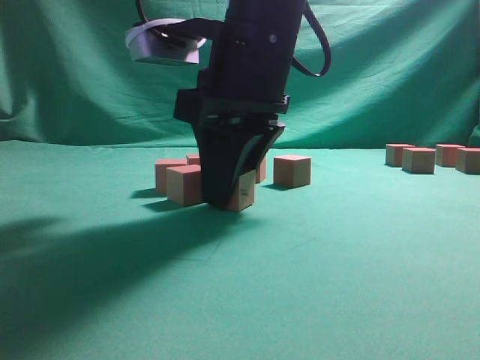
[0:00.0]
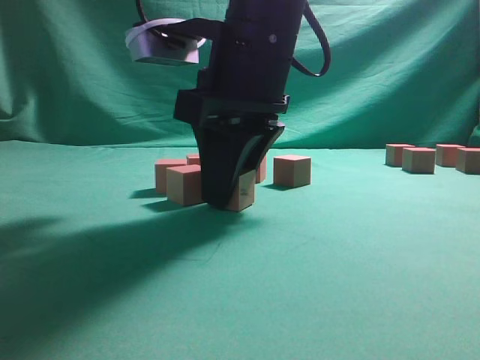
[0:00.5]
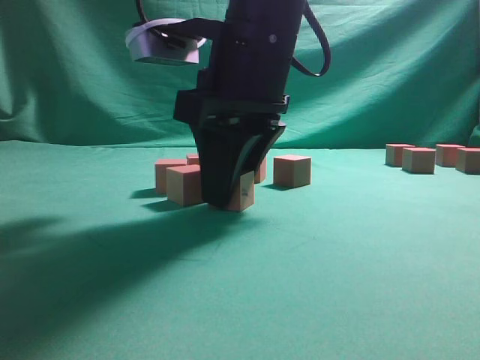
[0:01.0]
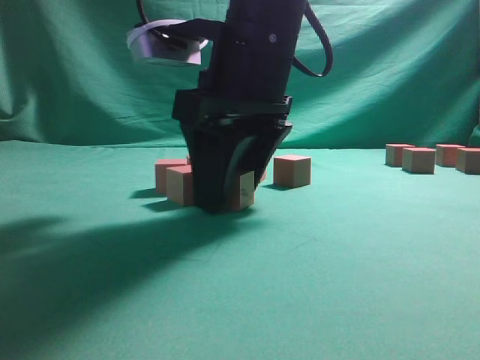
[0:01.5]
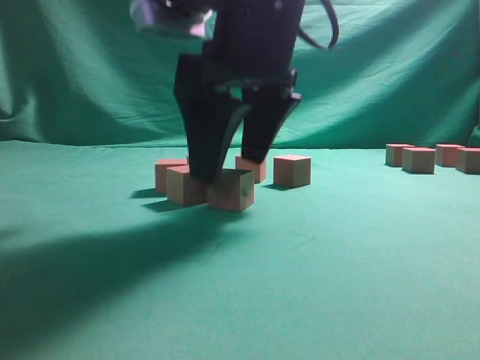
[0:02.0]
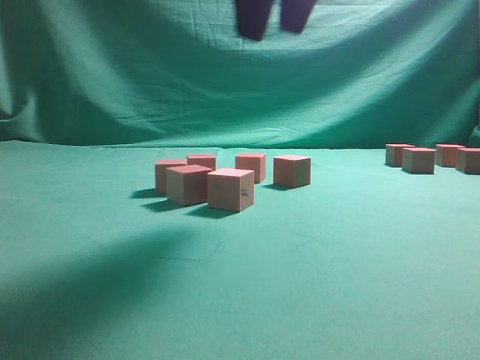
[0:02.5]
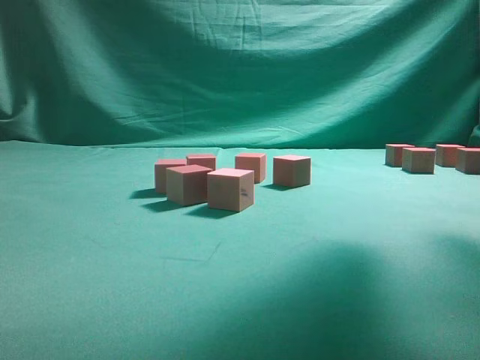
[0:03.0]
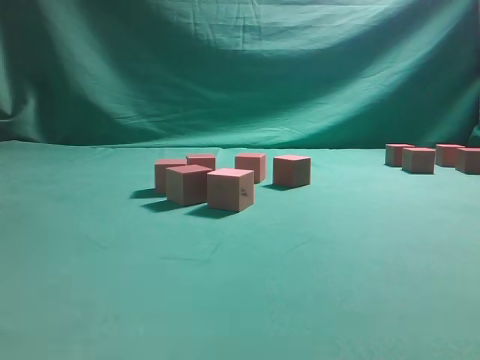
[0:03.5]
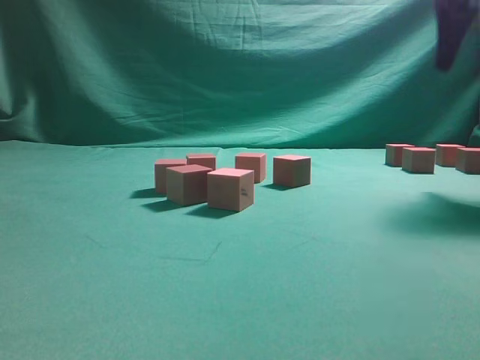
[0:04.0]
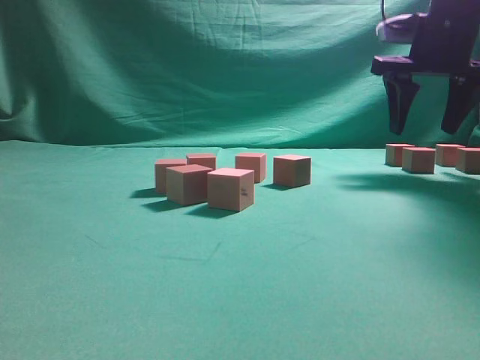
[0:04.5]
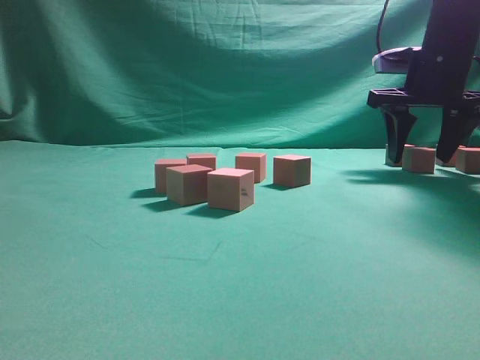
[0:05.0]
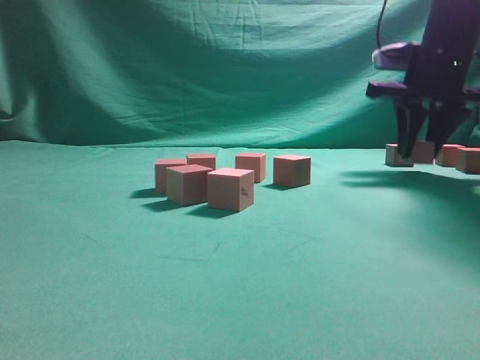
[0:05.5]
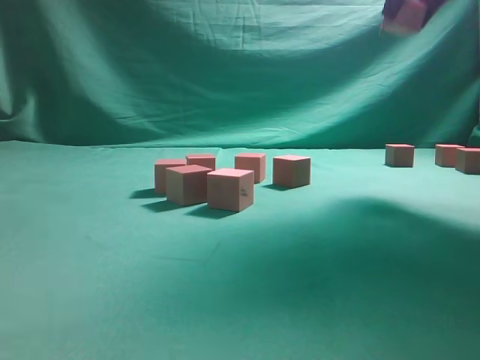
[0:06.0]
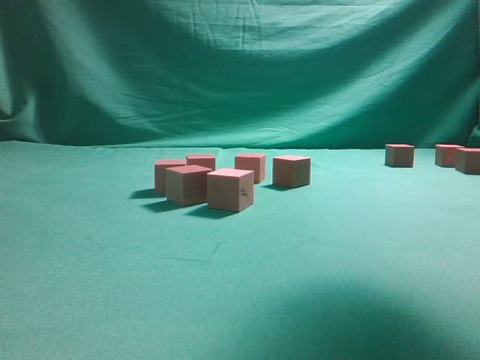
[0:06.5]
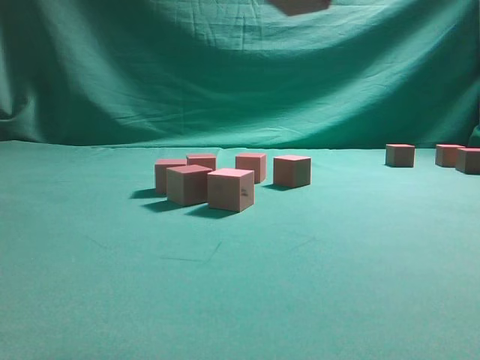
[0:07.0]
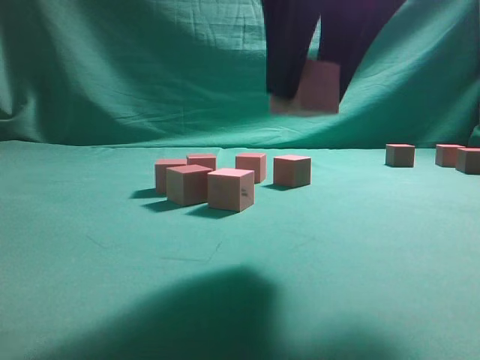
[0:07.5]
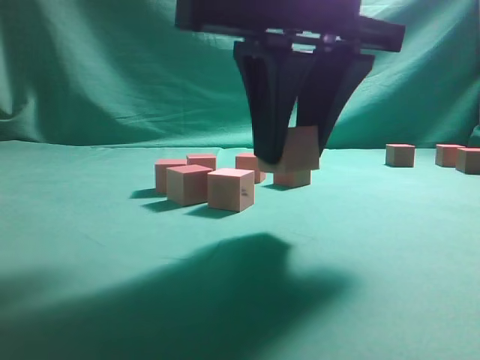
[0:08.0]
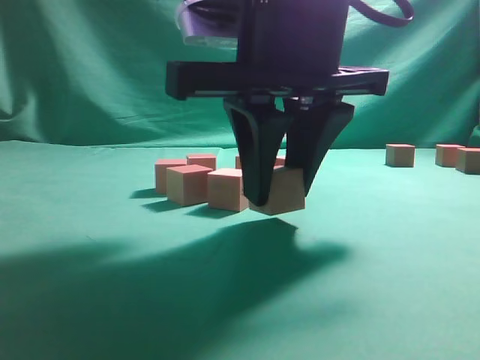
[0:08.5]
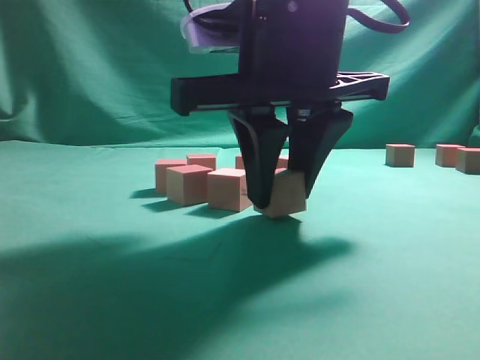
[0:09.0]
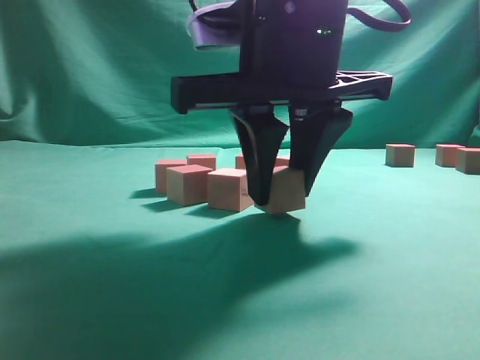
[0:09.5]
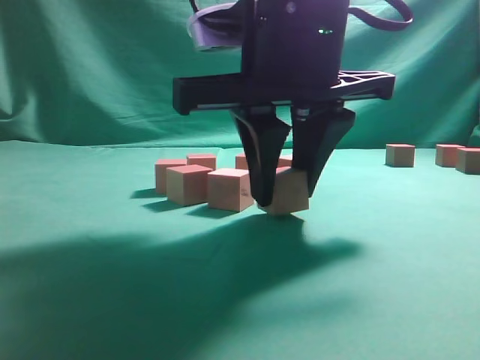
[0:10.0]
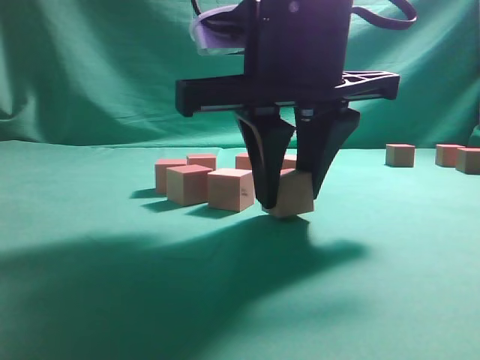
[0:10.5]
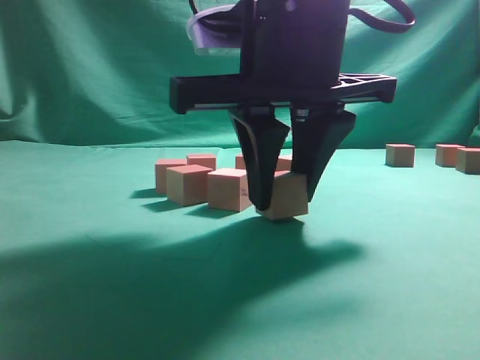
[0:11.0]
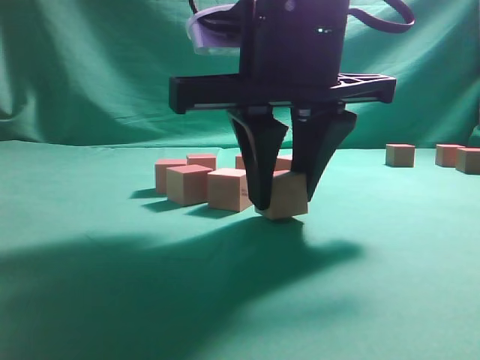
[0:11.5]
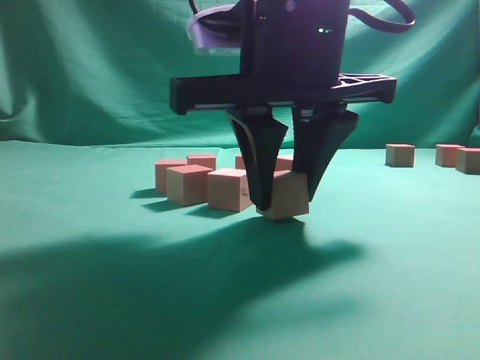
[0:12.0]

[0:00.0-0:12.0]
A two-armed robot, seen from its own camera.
Task of the whole recording: pick up the multiple cubes in two columns one by one and place them in another position on the table.
Step, 0:00.0 to 0:02.0: Place the block at the correct position to assemble the letter S.
Step, 0:02.5 to 0:05.5: Pick up the block on the table.
0:00.0 to 0:02.0: The right gripper opens its fingers.
0:02.0 to 0:04.0: The right gripper shifts roughly 25 cm to the right.
0:04.0 to 0:06.0: The right gripper goes some 5 cm upward, and closes up.
0:06.0 to 0:08.0: The right gripper moves to the left, backward and downward, some 25 cm.
0:10.0 to 0:12.0: Neither gripper changes place.

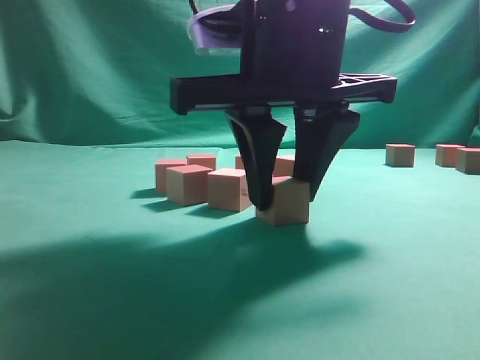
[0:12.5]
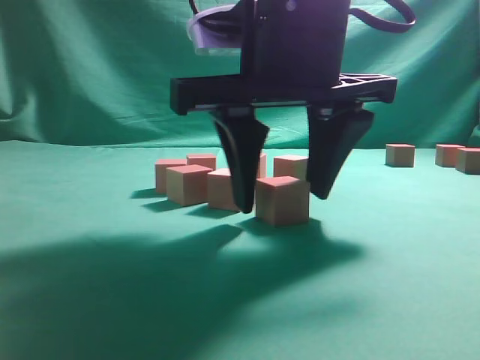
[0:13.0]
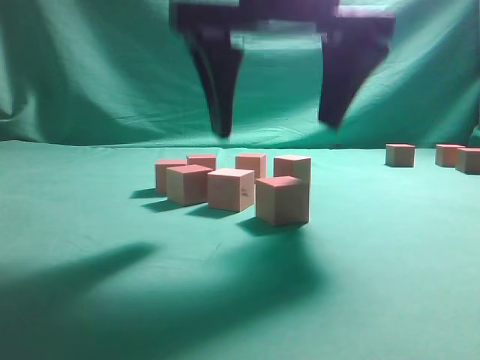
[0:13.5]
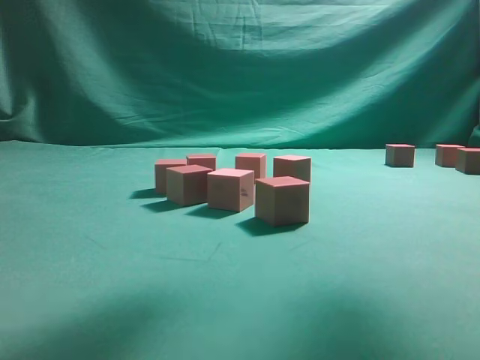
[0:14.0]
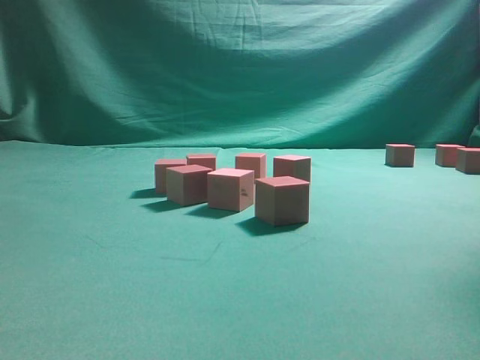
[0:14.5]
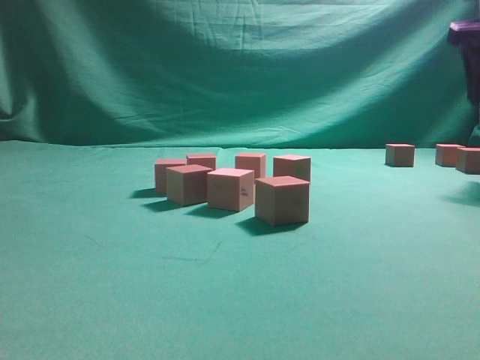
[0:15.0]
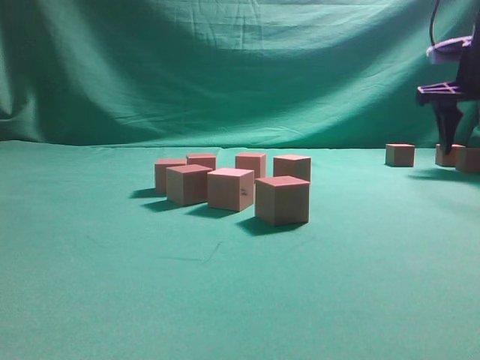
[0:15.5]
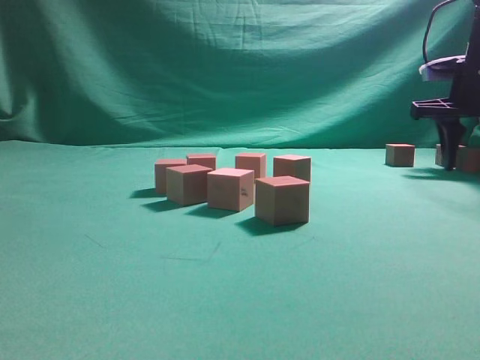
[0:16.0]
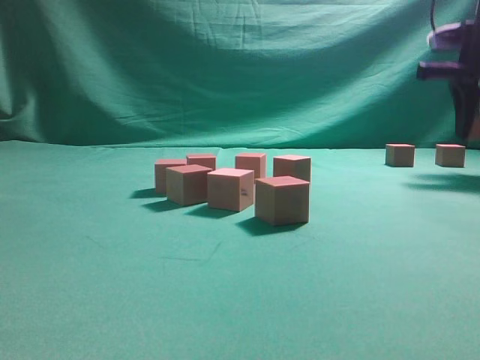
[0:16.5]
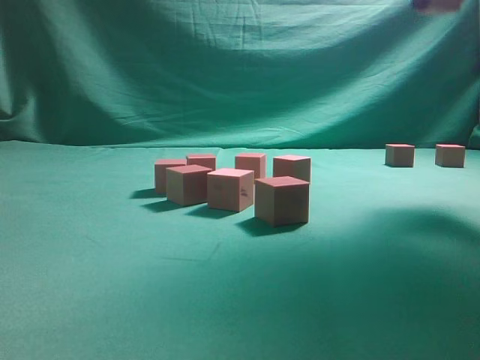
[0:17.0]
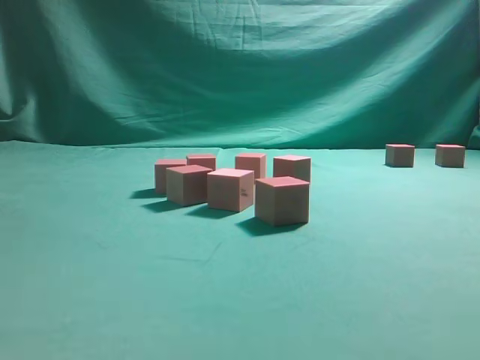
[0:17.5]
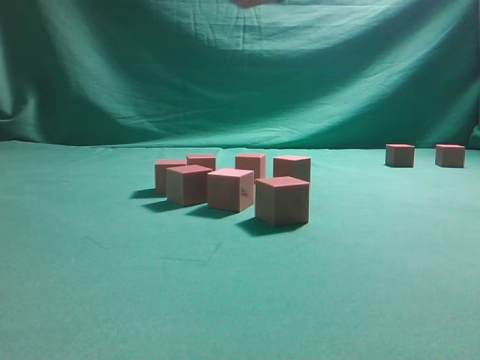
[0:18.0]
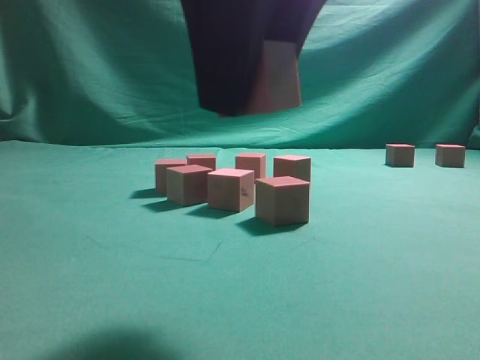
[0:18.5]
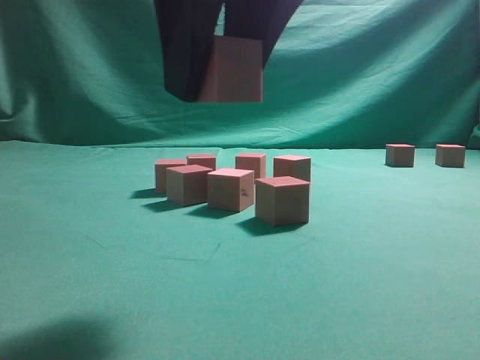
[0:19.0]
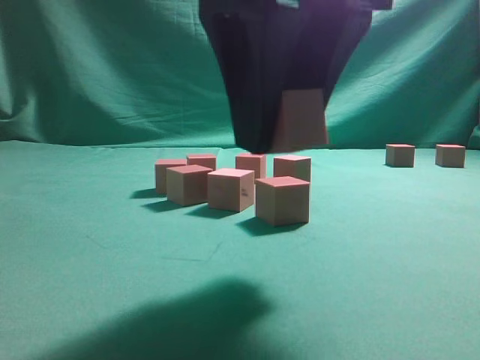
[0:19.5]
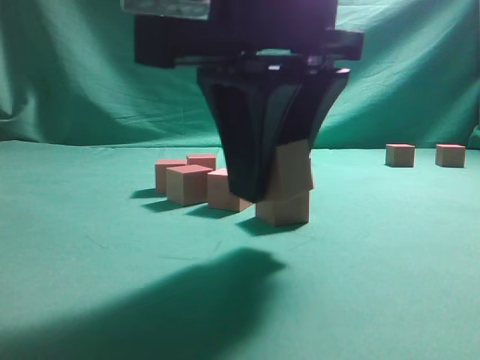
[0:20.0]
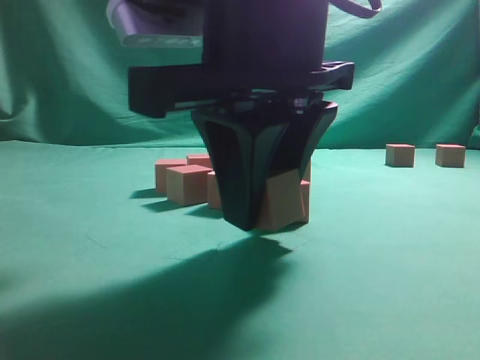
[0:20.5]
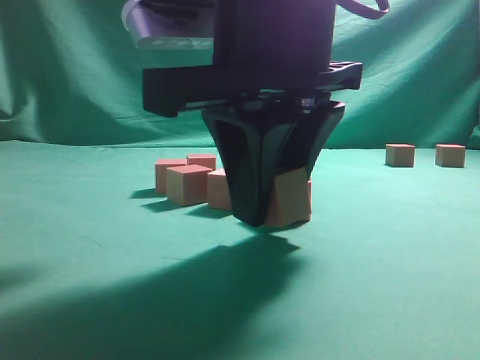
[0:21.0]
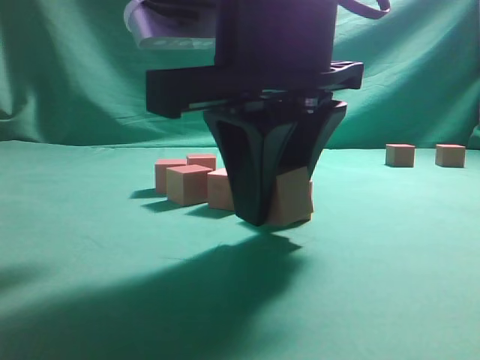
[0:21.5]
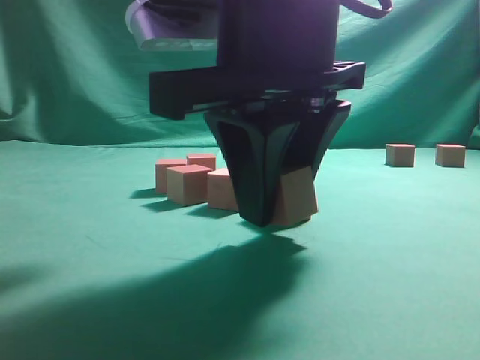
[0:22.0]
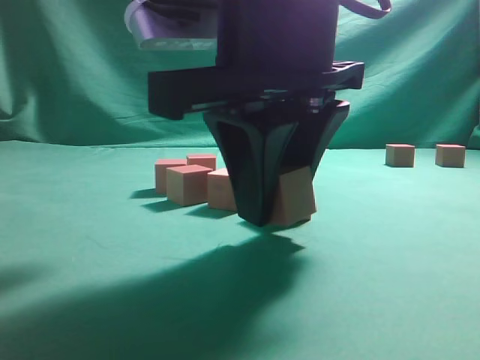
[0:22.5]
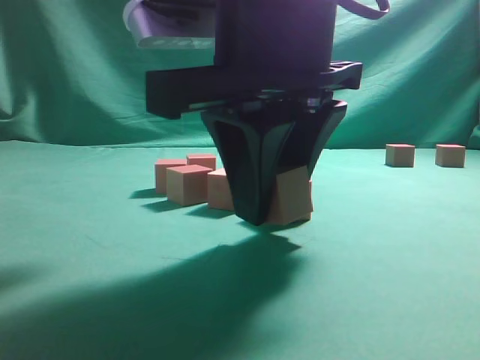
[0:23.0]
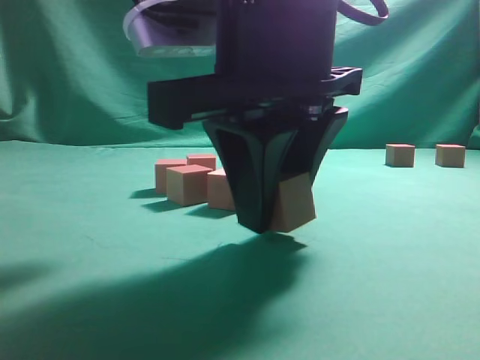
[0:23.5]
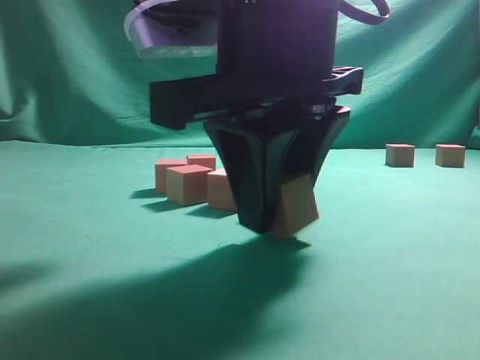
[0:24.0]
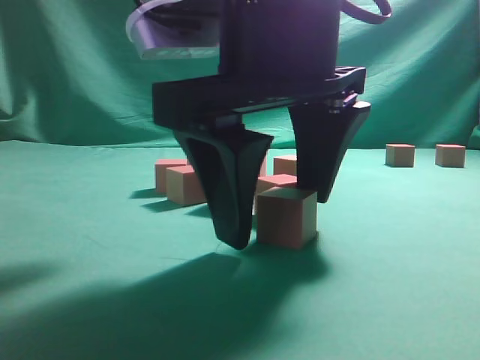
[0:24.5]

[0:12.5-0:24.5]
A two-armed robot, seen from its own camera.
Task of the whole recording: pick up the multiple cubes in two columns one by one and place them in another position on the table.
Step, 0:14.0 to 0:16.5: Pick up the block on the table.
0:12.5 to 0:14.5: The right gripper heads to the right and upward, covering some 30 cm, and opens its fingers.
0:14.5 to 0:16.5: The right gripper moves downward and forward, approximately 15 cm, and closes its fingers.
0:16.5 to 0:18.5: The right gripper moves backward and to the left, approximately 40 cm.
0:18.5 to 0:20.5: The right gripper goes some 5 cm downward.
0:20.5 to 0:22.5: Both grippers stay put.
0:22.5 to 0:24.5: The right gripper opens up.

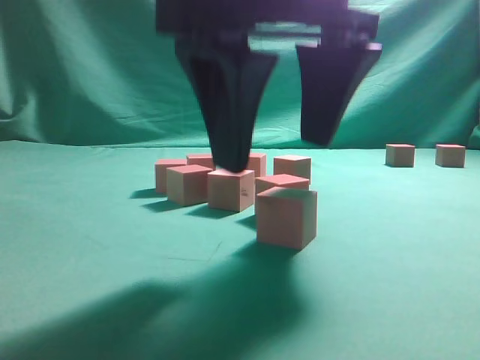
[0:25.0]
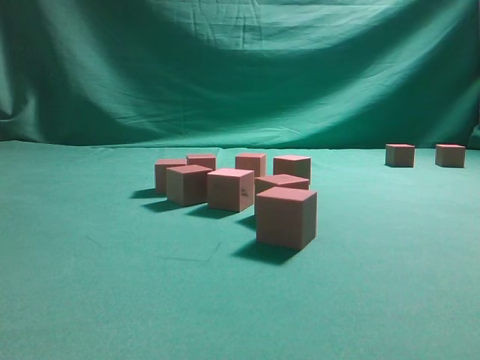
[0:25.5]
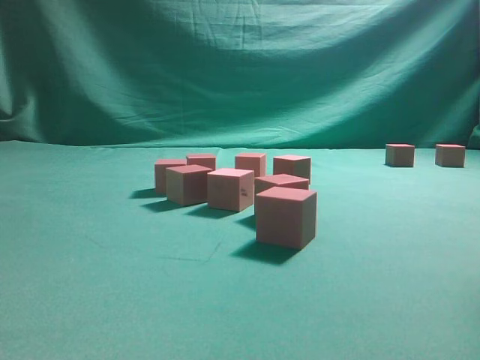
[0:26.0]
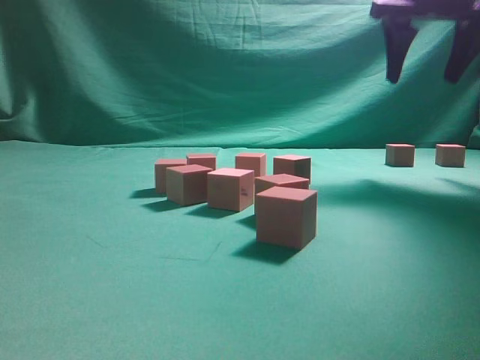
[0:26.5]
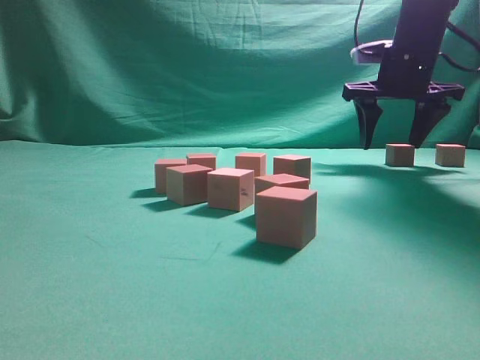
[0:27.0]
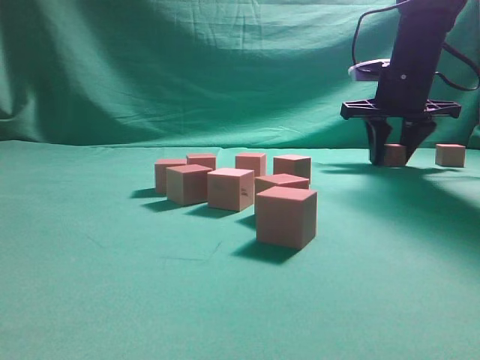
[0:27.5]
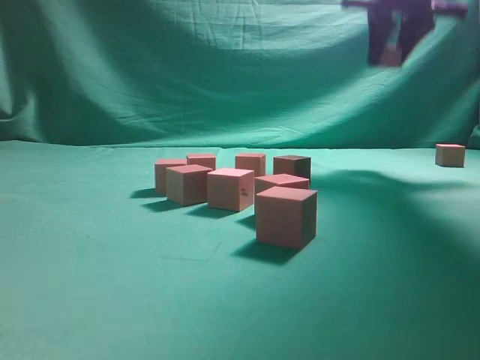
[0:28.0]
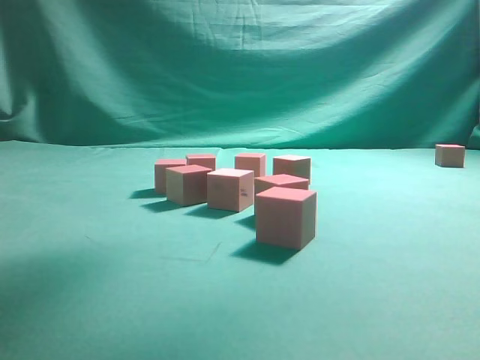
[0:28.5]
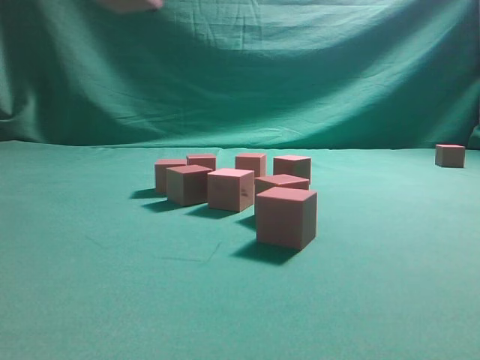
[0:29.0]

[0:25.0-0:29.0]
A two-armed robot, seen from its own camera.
Task of the whole recording: pick up the multiple cubes in two columns one by one and place them in another position on the table.
Step, 0:25.5 to 0:27.5: Pick up the block on the table.
0:25.0 to 0:27.0: The right gripper goes about 35 cm forward and to the right.
0:27.0 to 0:29.0: The right gripper is displaced backward and to the left by roughly 40 cm, and closes up.
